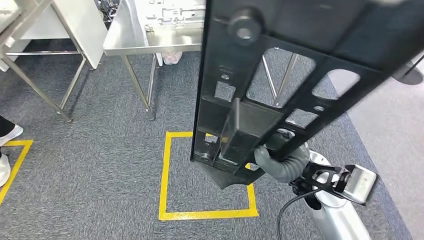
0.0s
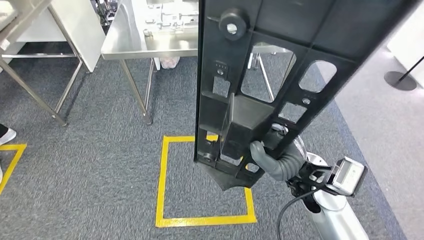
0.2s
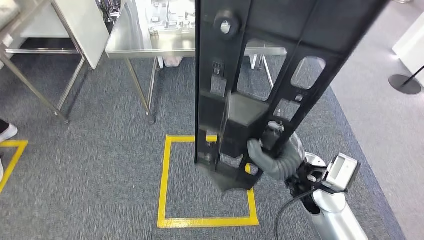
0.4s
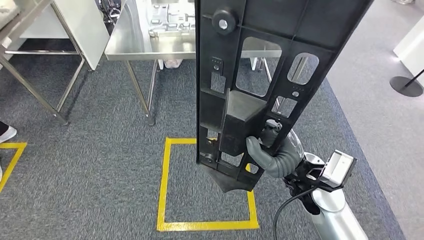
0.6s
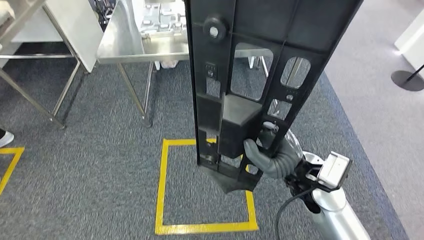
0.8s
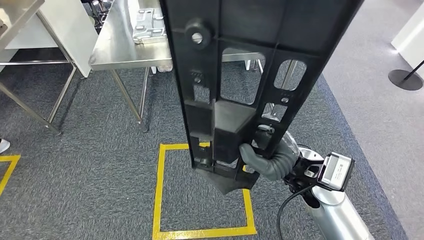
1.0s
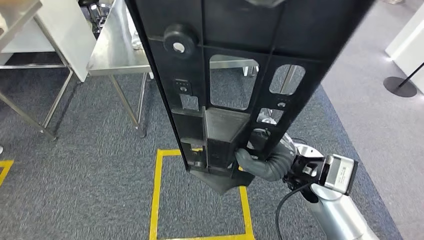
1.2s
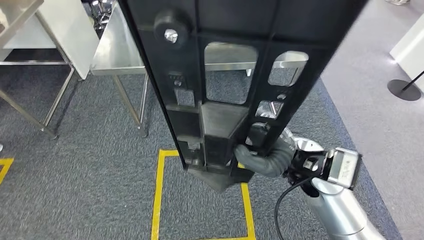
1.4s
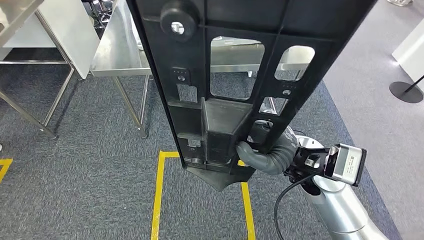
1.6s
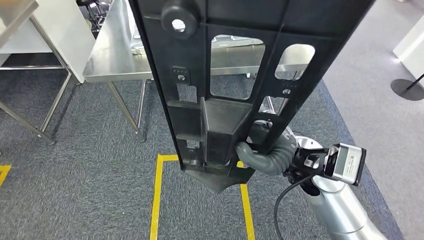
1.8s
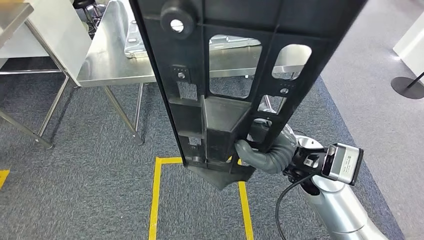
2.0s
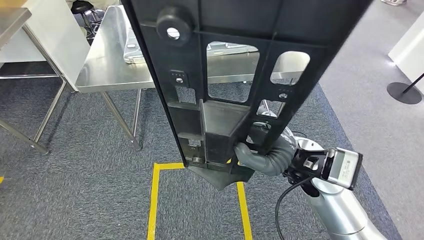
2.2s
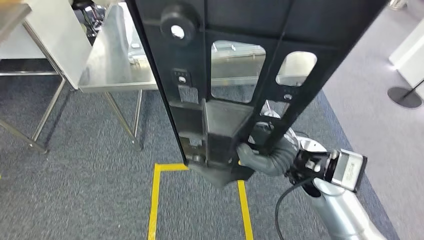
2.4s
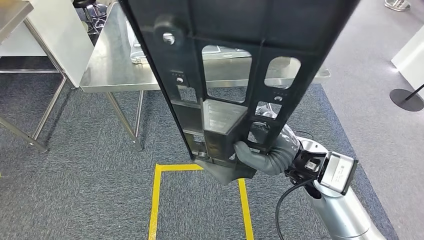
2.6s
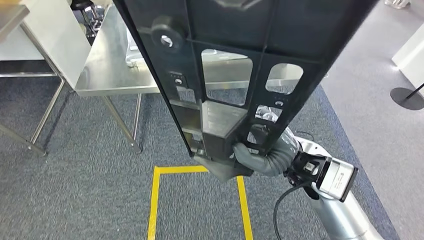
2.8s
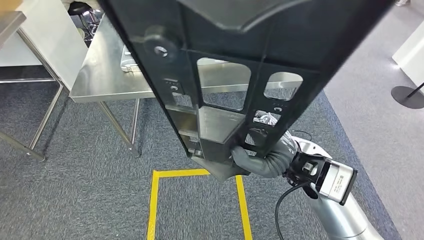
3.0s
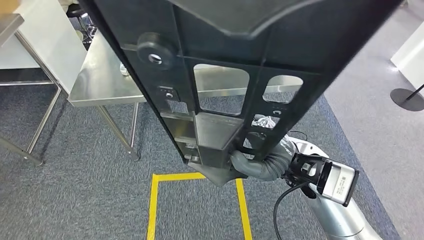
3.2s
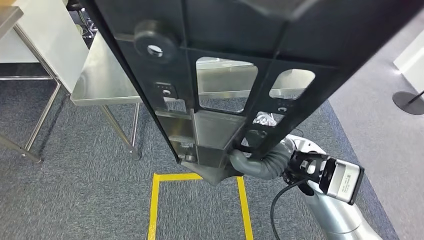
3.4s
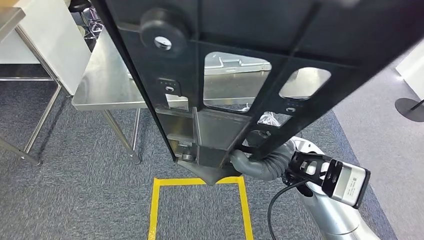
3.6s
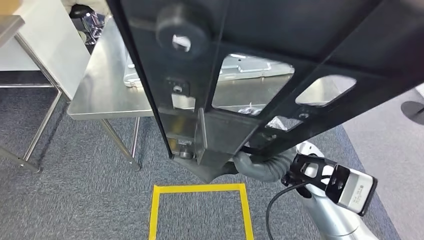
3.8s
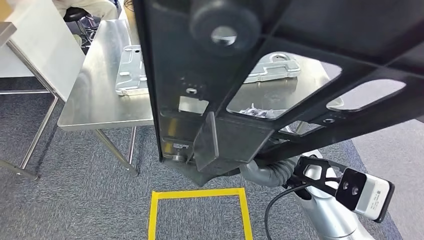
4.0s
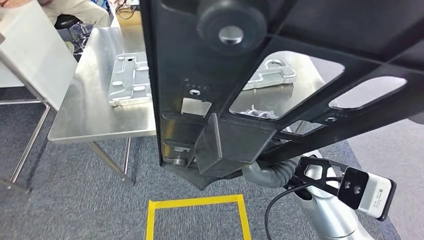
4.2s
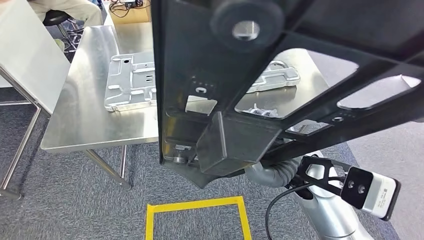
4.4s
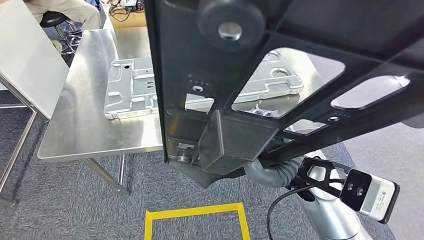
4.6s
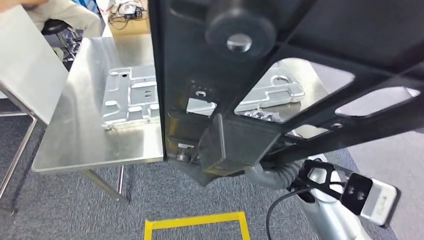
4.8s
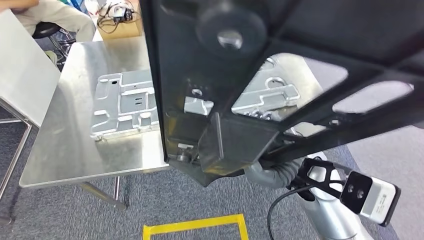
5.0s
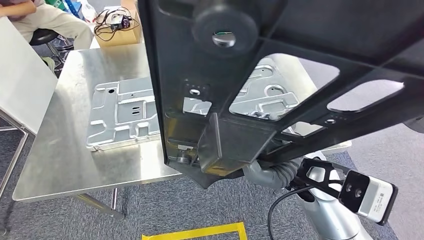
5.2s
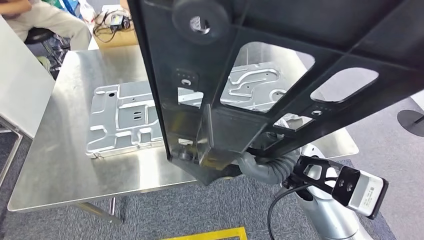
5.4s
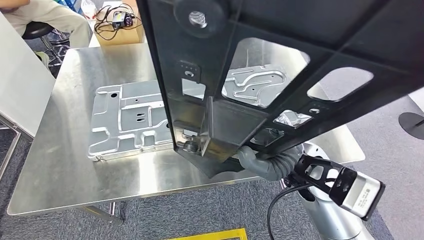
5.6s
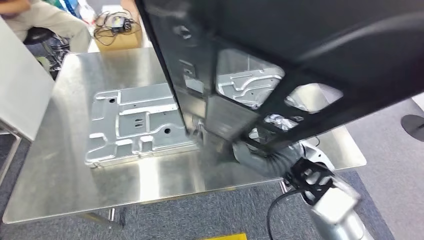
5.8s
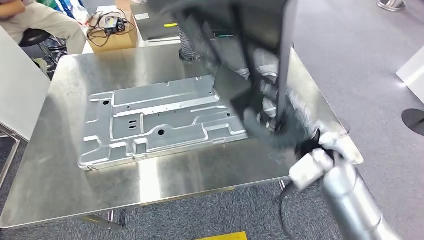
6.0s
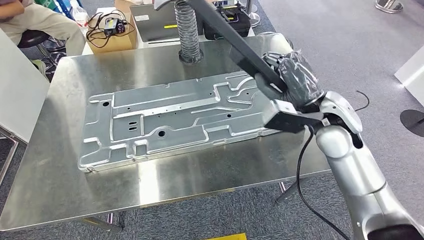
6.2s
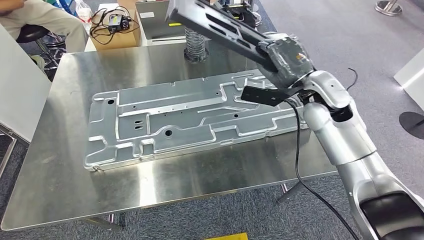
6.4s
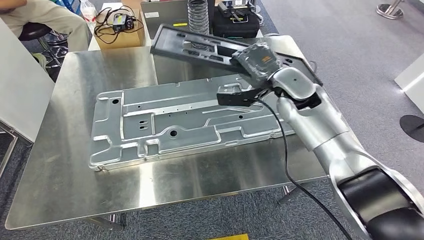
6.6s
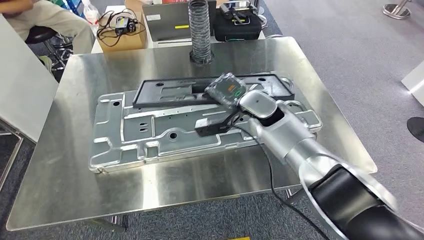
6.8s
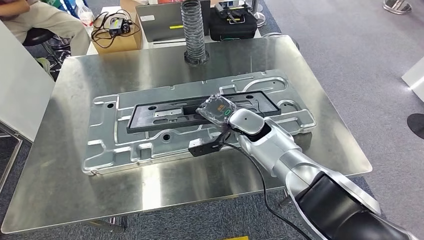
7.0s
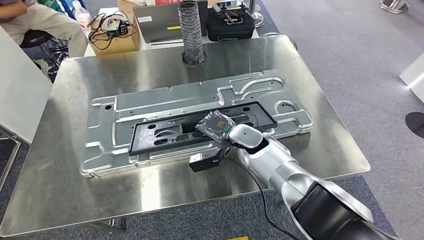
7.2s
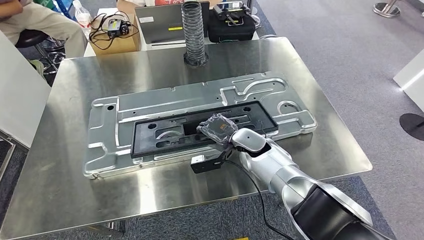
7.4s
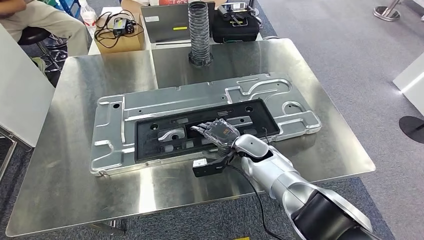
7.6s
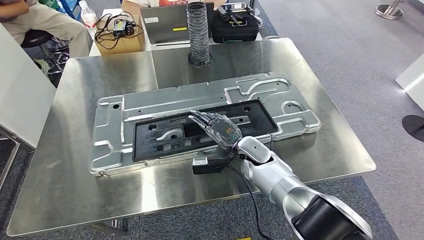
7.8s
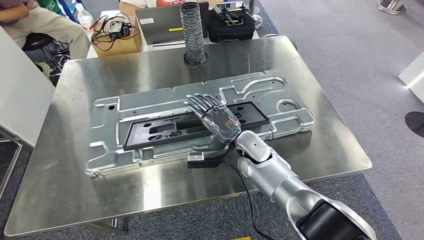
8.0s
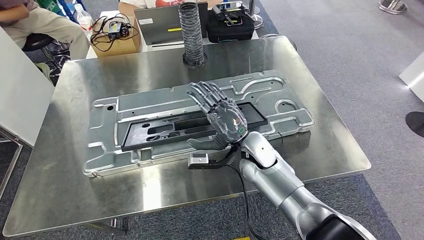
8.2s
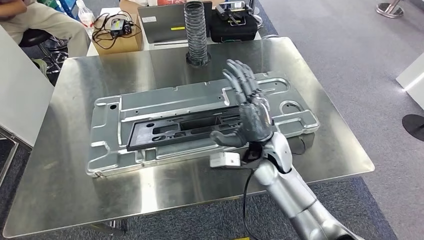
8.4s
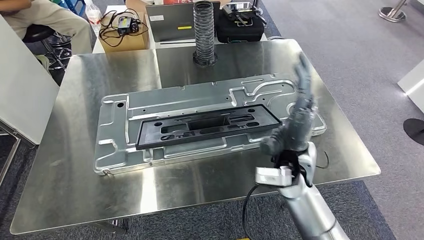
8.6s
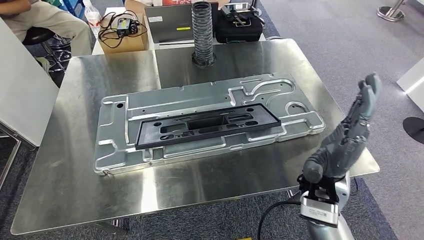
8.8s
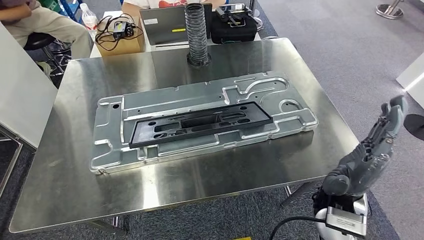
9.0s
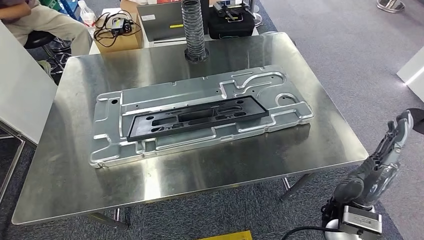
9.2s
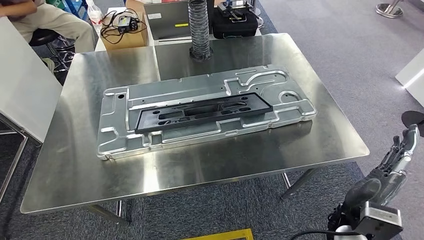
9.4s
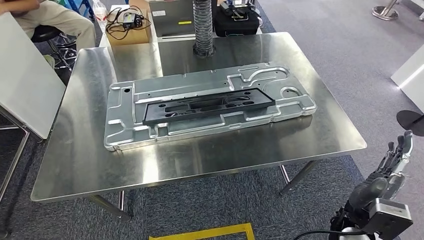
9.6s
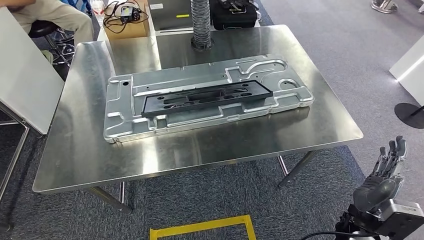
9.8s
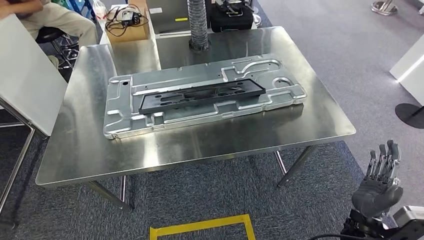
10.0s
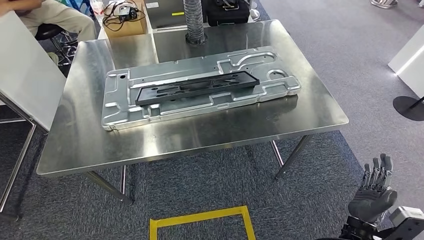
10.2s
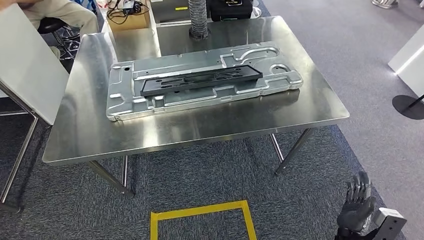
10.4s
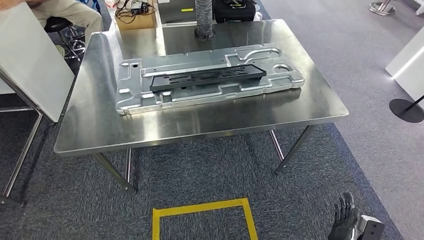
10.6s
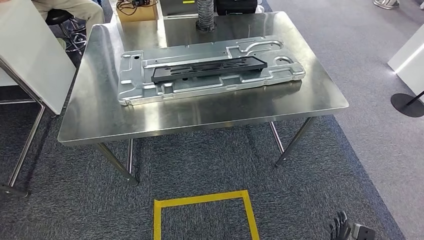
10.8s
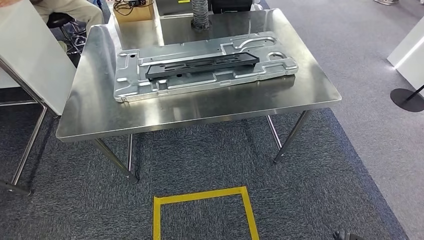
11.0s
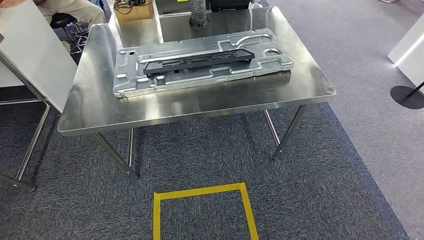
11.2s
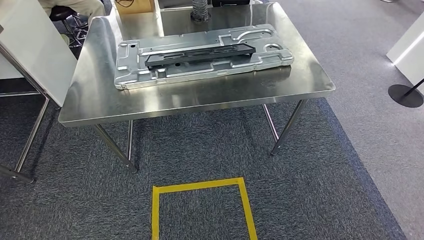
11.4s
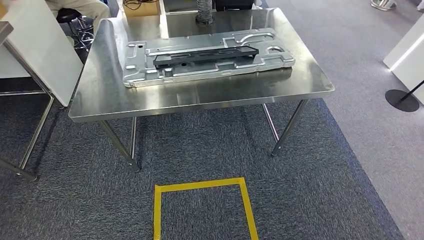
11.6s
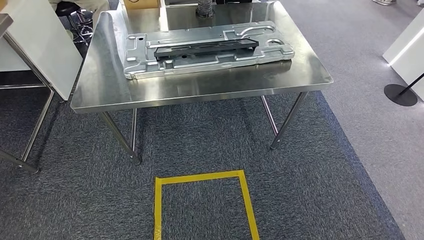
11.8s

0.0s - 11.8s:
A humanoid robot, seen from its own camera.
Step, 0.0s - 5.0s: Move the small parts to the workbench.
Step, 5.2s - 9.0s: Insert the small parts into the corresponding holes on the workbench.

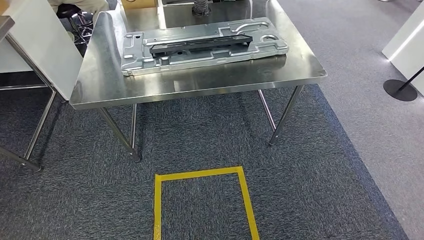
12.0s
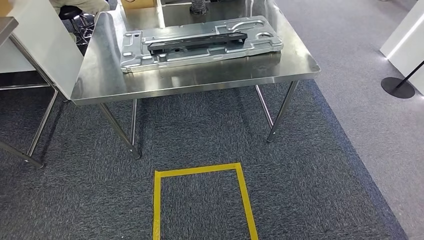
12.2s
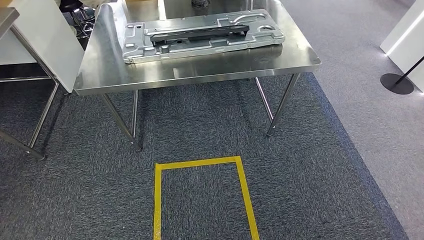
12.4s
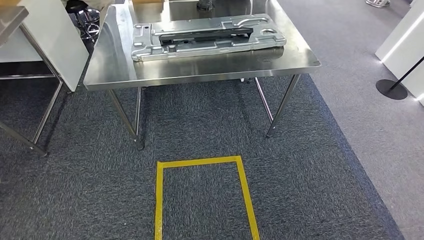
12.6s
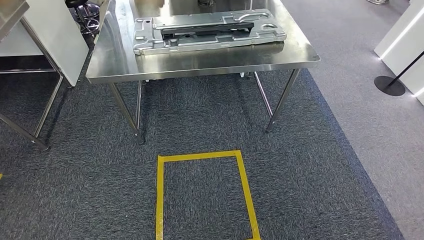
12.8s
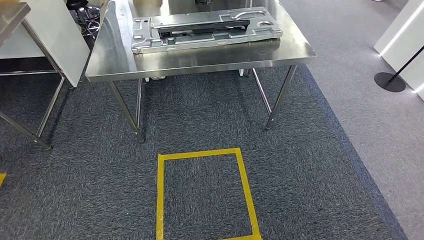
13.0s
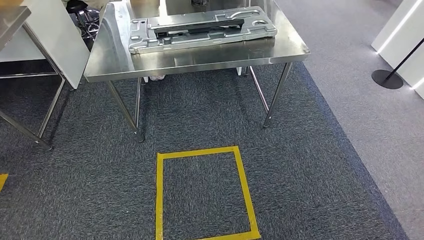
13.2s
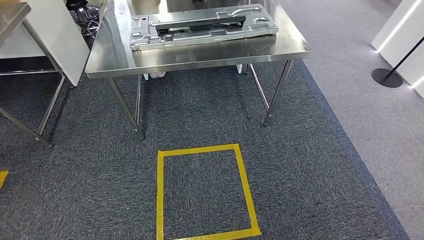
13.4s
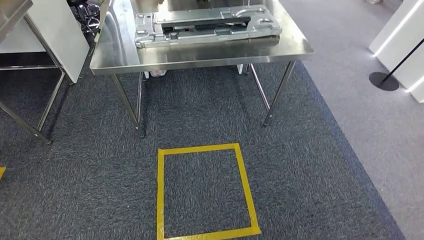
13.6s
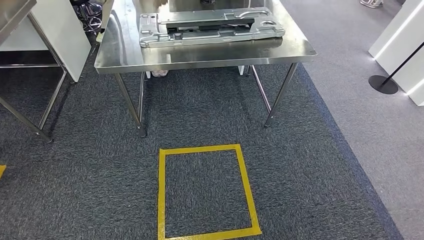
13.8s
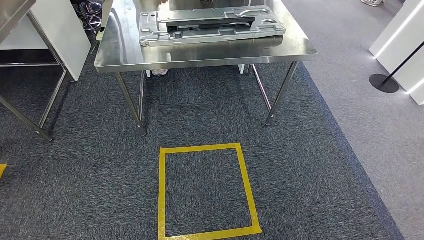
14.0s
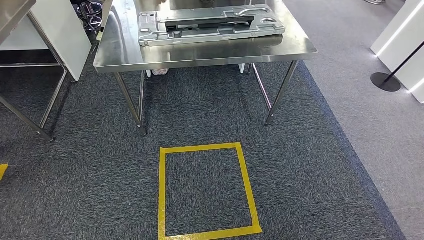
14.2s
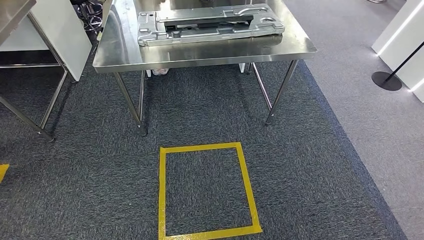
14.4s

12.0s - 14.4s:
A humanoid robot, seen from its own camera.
Step, 12.0s - 14.4s: Move to the initial position at the workbench.
13.2s - 14.4s: The hands stay close to where they were, moving slightly.
